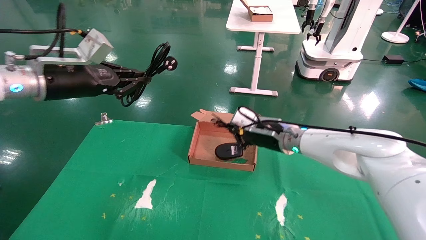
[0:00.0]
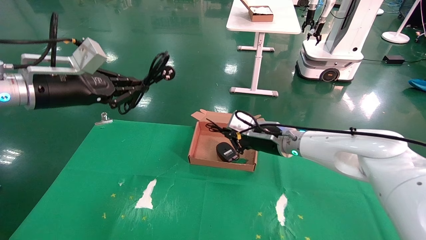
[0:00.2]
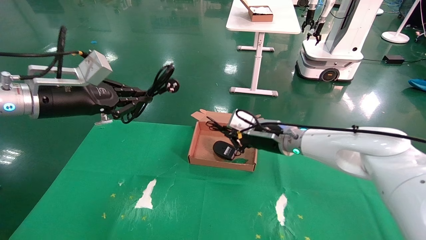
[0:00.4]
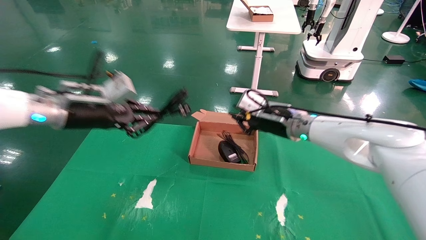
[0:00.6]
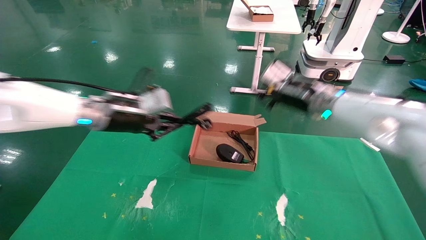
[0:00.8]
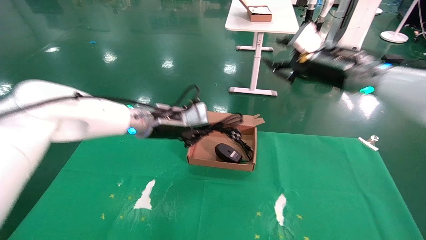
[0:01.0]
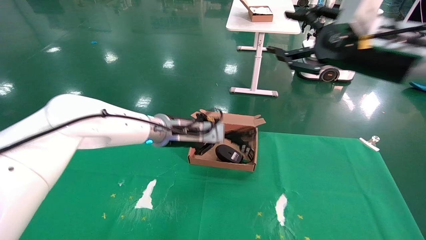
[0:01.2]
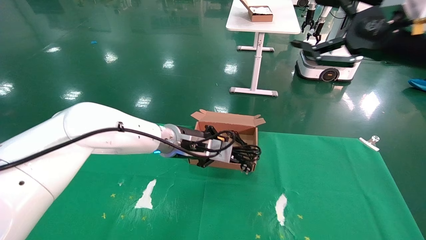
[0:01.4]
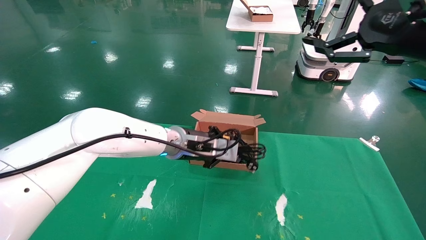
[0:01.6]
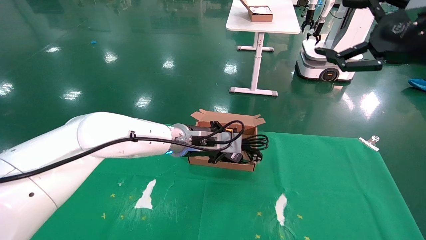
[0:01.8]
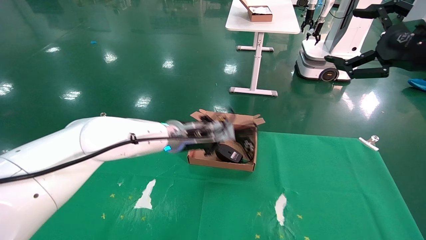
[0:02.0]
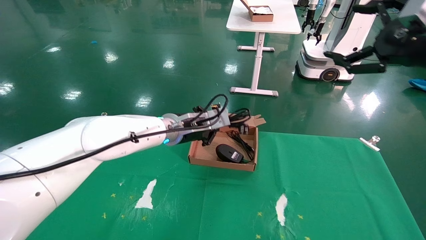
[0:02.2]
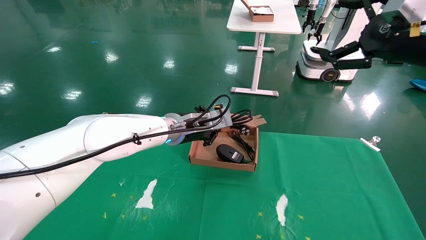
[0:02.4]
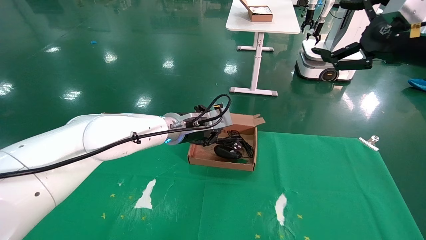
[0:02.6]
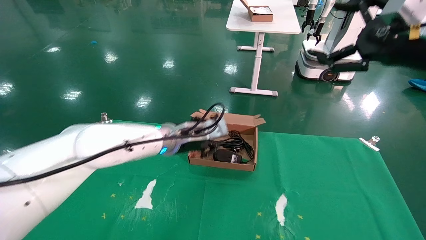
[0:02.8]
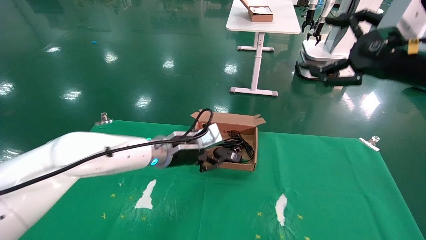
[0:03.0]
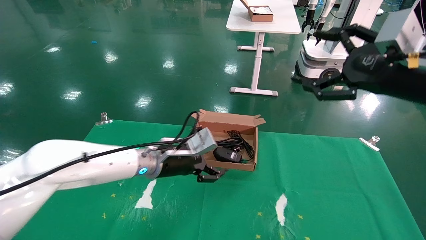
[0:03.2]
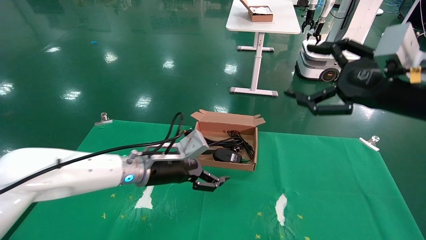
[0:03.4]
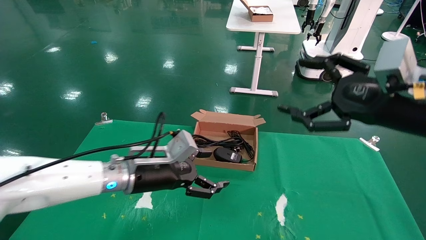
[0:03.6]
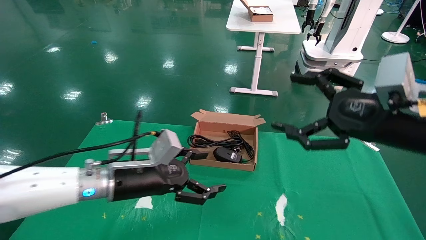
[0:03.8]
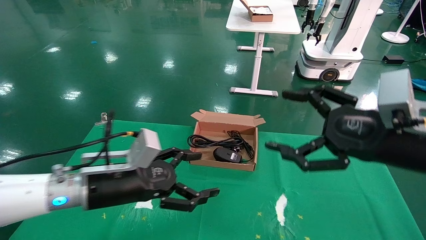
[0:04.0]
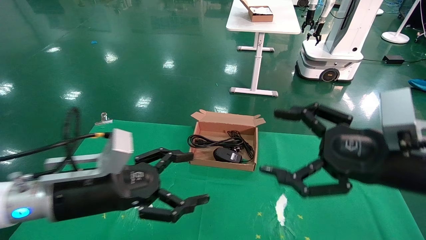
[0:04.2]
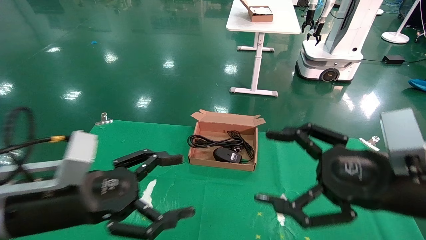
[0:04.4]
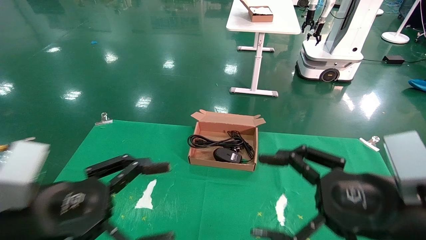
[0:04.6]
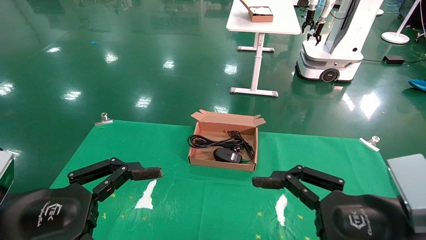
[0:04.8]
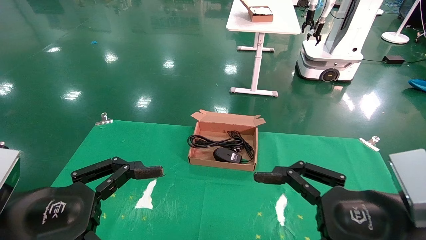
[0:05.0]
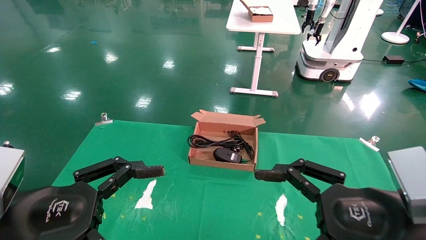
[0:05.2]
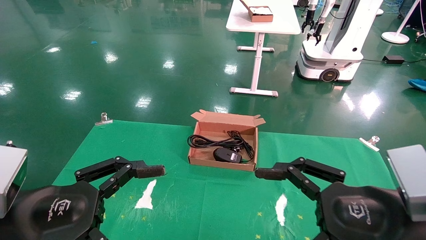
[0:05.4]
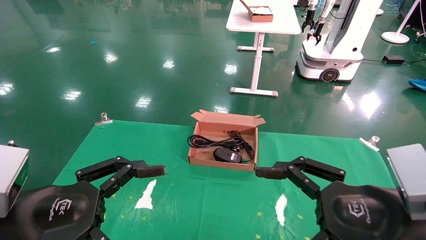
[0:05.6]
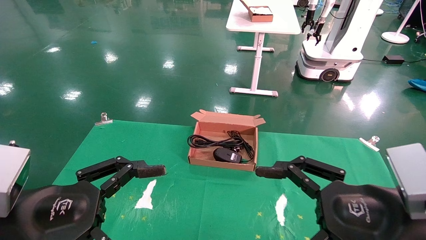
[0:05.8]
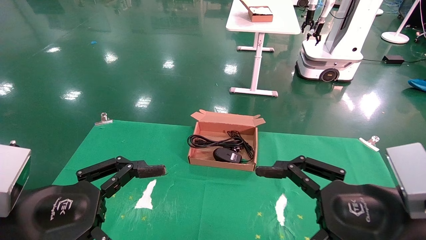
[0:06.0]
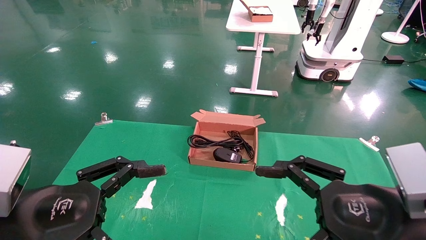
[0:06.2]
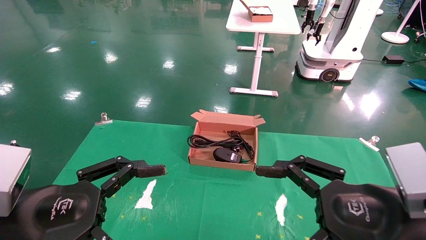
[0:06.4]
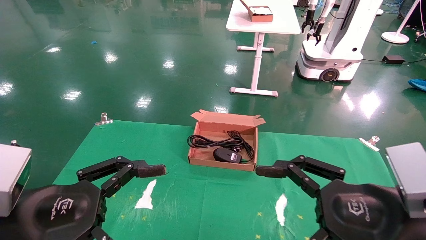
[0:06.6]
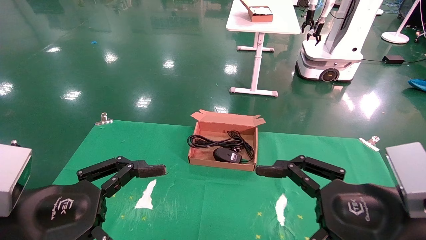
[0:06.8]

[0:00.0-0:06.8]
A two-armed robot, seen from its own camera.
Step, 0:00.0 to 0:02.8: Place the mouse and power cord into the box.
0:00.0 to 0:01.4: The left gripper is displaced to the right and downward by some 25 cm, while the right gripper is displaced upward, to the right and backward by roughly 30 cm, and opens.
0:02.8 to 0:04.0: The right gripper goes some 15 cm downward, to the left and backward. The left gripper moves backward and to the left, roughly 20 cm, and opens up.
0:04.0 to 0:05.4: The right gripper is displaced backward and downward by some 10 cm, while the left gripper travels backward and to the left by about 15 cm.
0:05.4 to 0:06.8: Both grippers stay about where they are.
